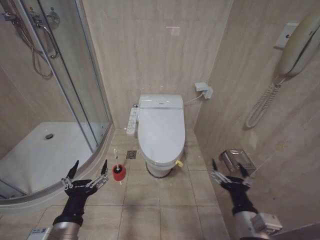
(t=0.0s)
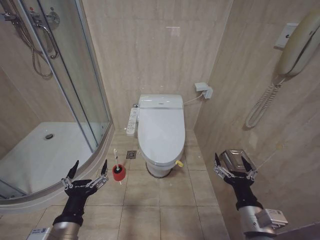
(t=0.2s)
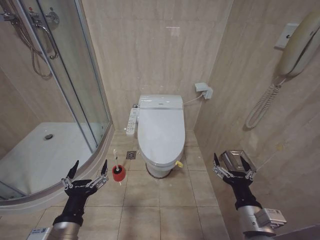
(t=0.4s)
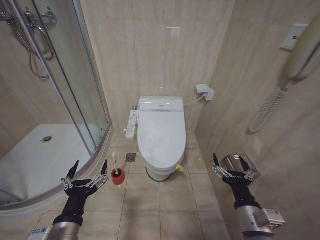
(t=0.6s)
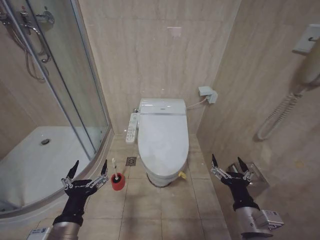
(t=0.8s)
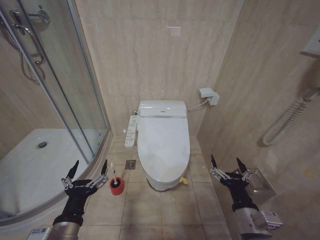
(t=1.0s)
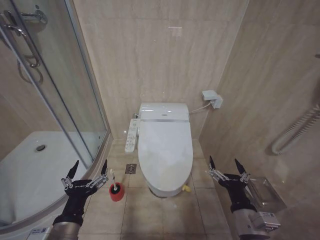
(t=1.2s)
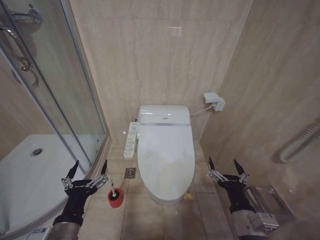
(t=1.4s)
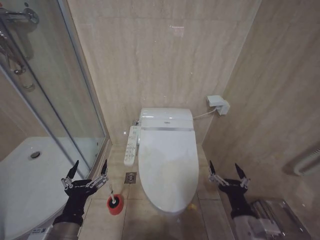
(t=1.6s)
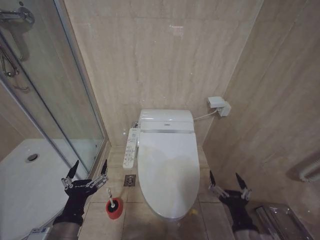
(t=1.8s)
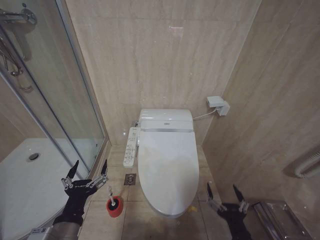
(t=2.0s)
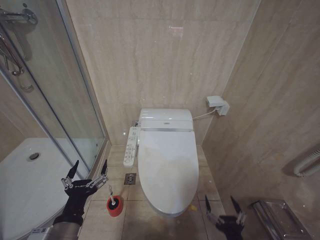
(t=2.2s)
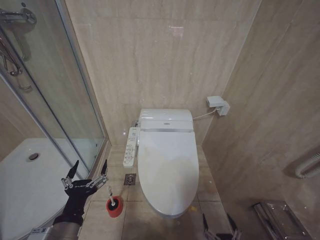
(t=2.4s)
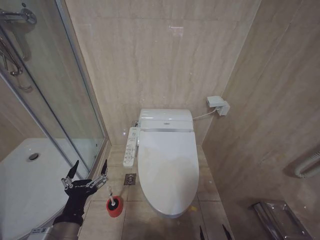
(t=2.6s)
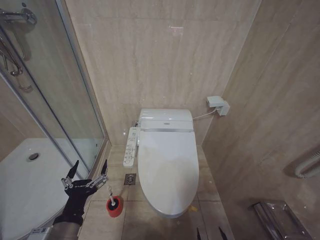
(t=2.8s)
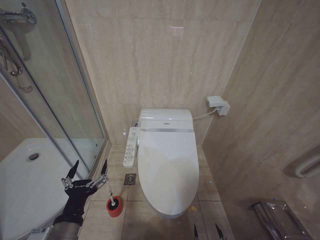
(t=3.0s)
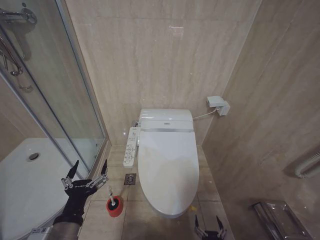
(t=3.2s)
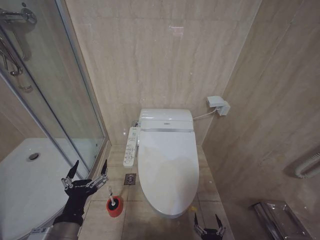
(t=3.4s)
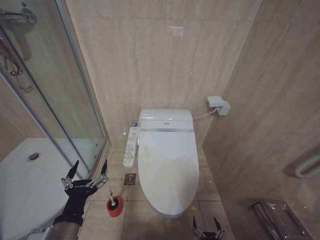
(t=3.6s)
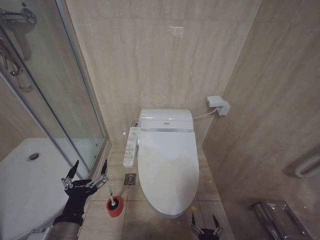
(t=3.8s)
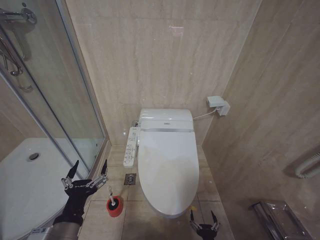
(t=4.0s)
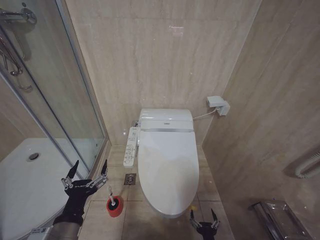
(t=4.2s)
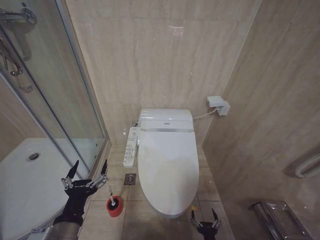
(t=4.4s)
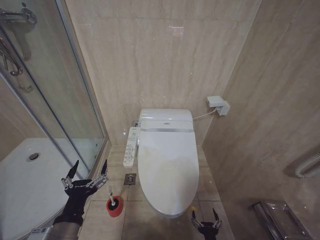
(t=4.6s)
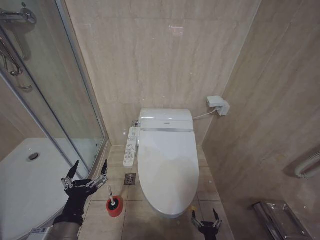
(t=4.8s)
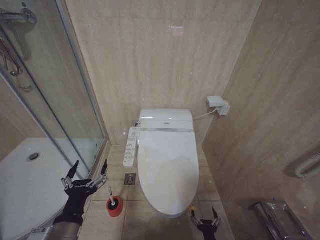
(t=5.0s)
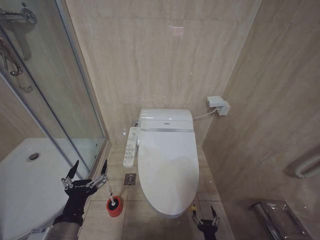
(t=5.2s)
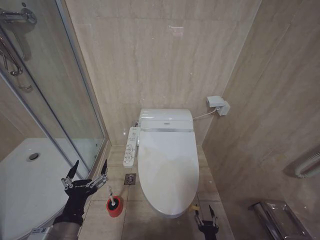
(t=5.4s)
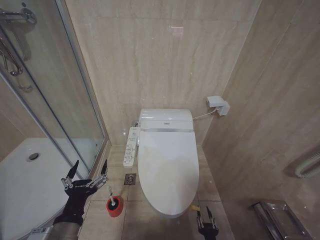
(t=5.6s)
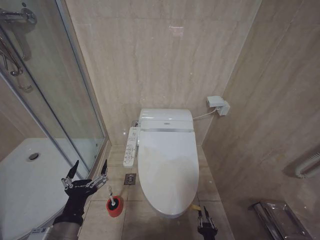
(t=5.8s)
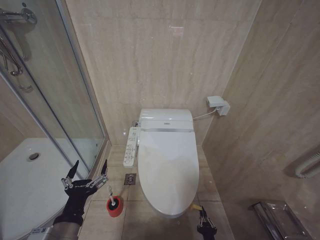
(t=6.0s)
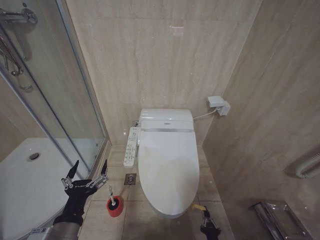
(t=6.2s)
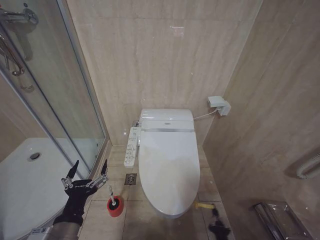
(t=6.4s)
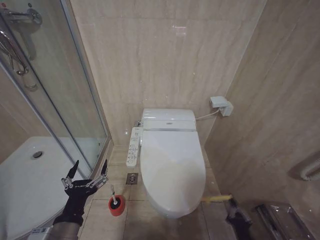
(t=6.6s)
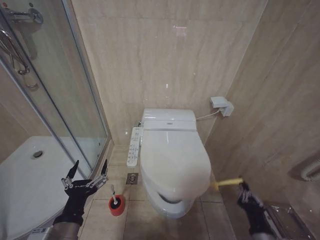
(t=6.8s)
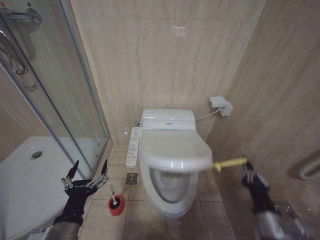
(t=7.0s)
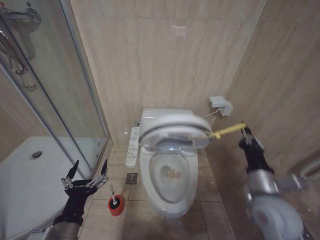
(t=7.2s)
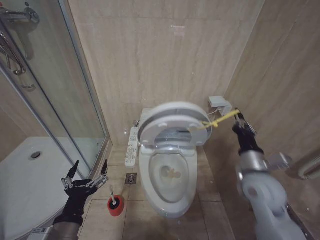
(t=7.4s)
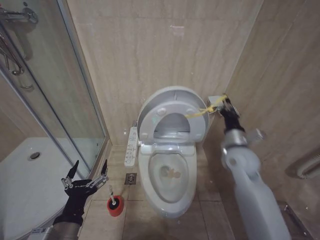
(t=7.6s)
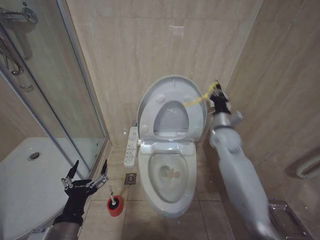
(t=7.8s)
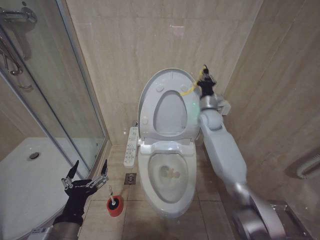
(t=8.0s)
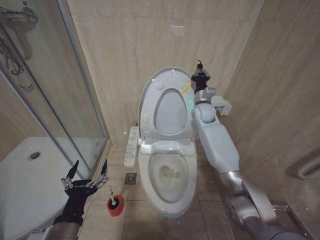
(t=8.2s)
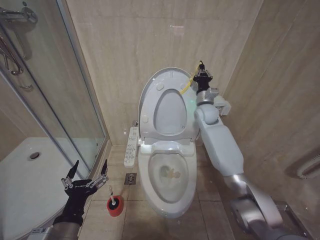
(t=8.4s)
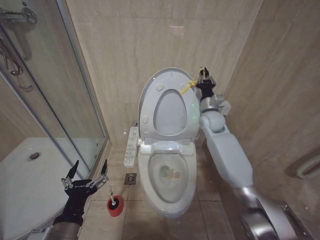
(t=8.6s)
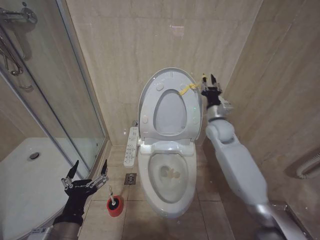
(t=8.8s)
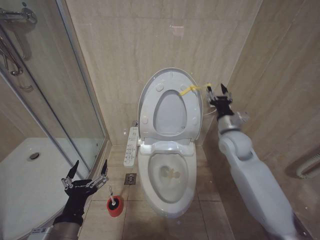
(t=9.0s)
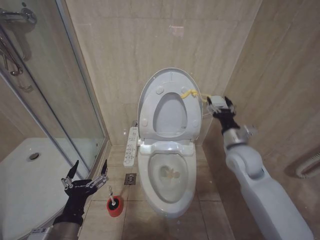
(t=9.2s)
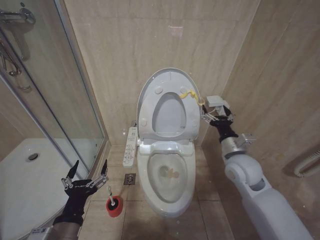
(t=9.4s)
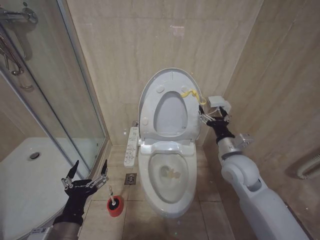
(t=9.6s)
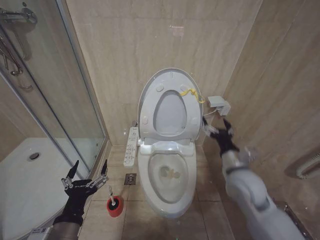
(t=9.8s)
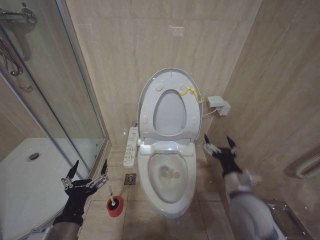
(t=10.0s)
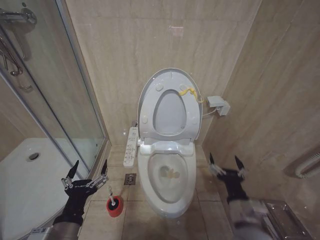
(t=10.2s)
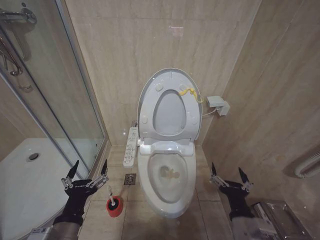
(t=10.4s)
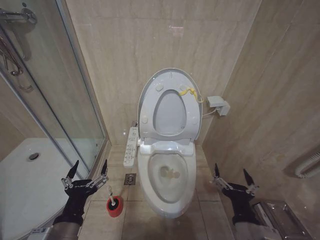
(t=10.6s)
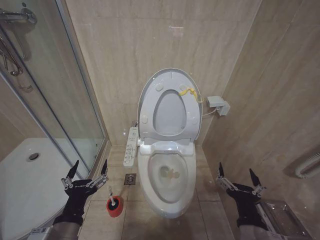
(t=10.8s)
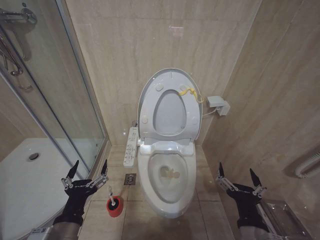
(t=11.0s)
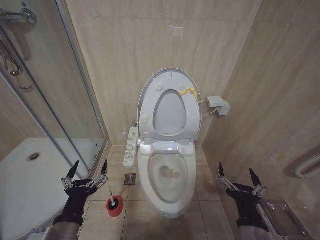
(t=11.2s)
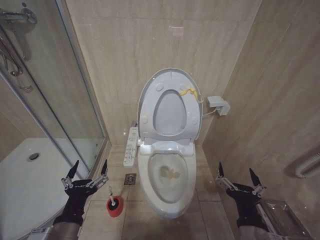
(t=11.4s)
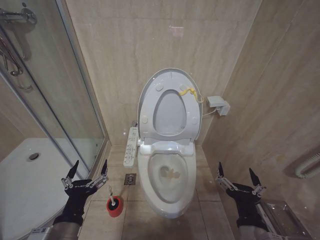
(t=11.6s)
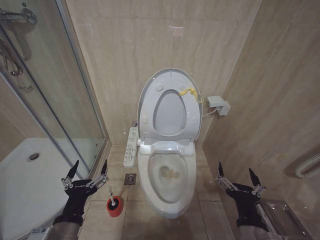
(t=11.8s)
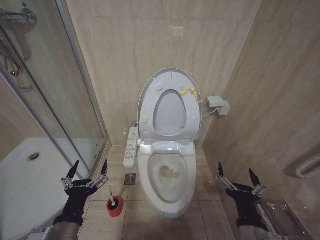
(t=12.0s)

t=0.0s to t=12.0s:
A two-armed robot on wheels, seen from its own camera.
Task of the whole recording: Open the toilet lid, clean the toilet bowl with a toilet brush, close the toilet lid, and flush.
t=1.6s to t=3.0s: The right gripper goes approximately 25 cm downward.
t=6.0s to t=7.6s: The right gripper heads upward and forward, covering roughly 50 cm.
t=7.6s to t=9.0s: The right gripper is displaced forward by roughly 10 cm, and opens its fingers.
t=9.0s to t=10.4s: The right gripper is displaced backward and downward by about 35 cm, and opens up.
t=10.4s to t=12.0s: The grippers move only a little.

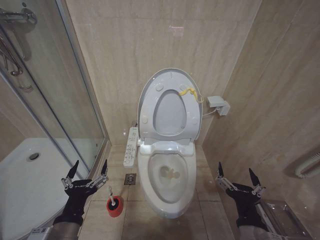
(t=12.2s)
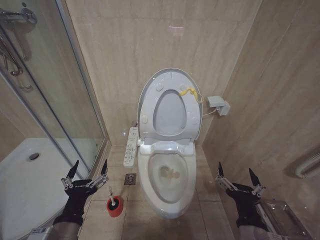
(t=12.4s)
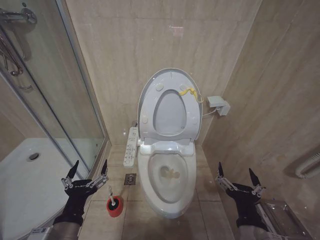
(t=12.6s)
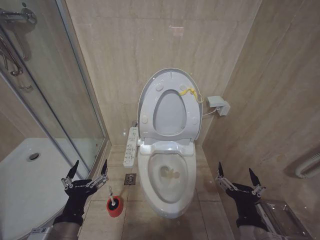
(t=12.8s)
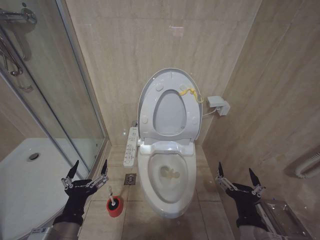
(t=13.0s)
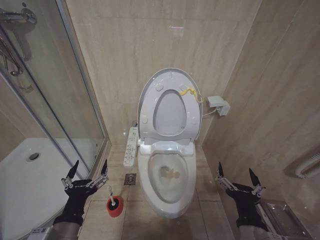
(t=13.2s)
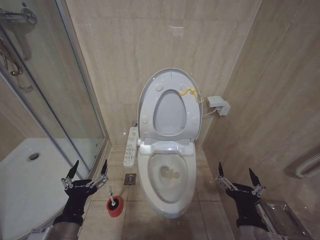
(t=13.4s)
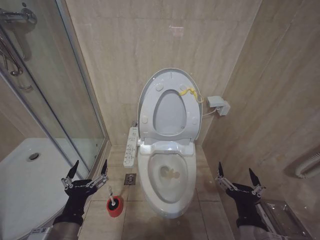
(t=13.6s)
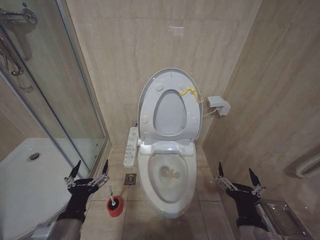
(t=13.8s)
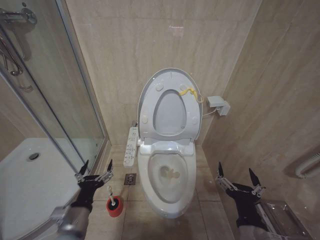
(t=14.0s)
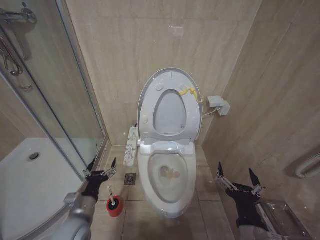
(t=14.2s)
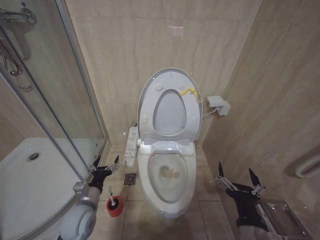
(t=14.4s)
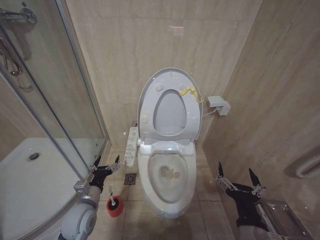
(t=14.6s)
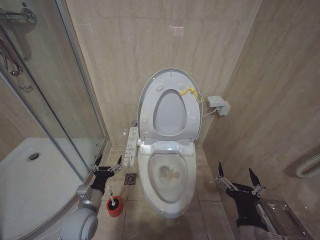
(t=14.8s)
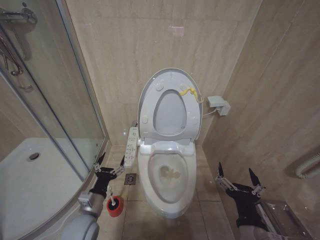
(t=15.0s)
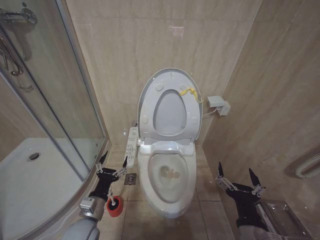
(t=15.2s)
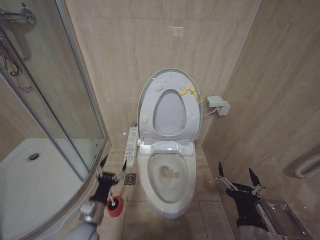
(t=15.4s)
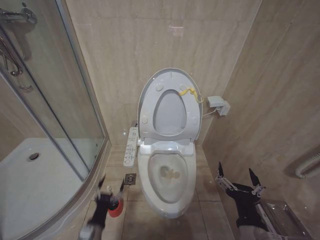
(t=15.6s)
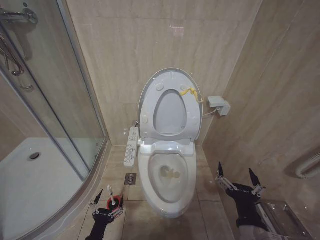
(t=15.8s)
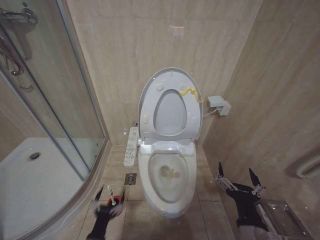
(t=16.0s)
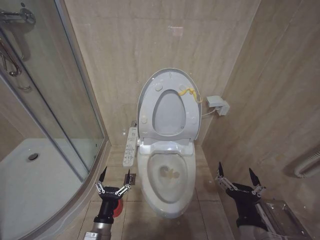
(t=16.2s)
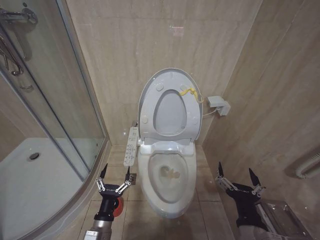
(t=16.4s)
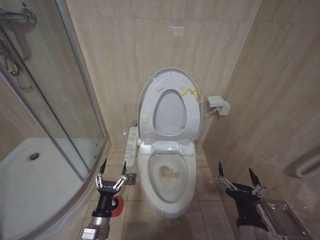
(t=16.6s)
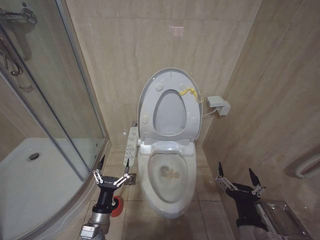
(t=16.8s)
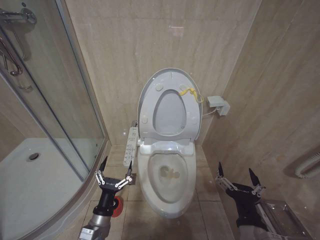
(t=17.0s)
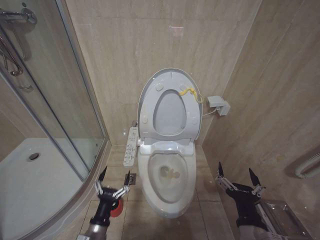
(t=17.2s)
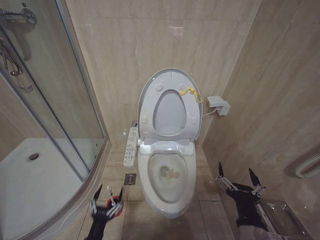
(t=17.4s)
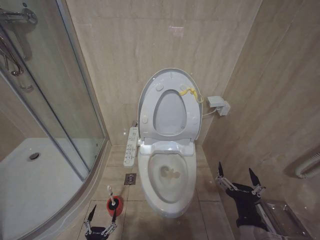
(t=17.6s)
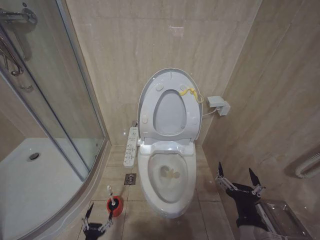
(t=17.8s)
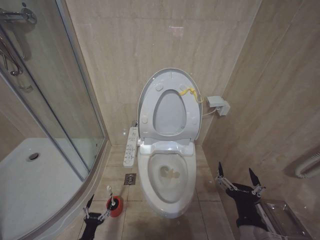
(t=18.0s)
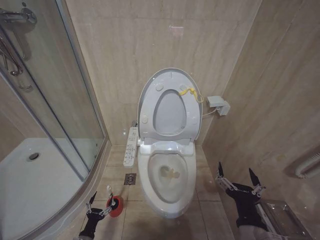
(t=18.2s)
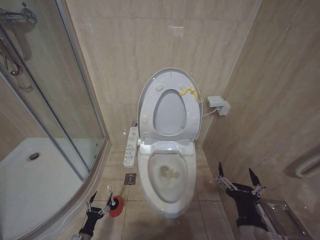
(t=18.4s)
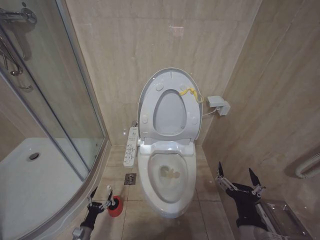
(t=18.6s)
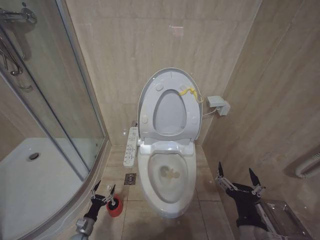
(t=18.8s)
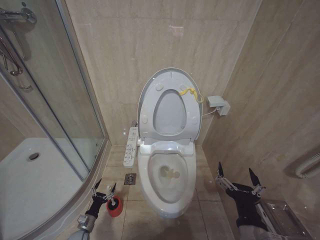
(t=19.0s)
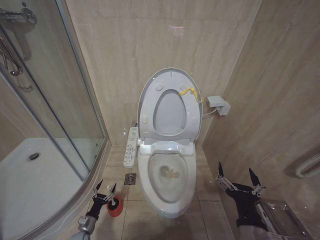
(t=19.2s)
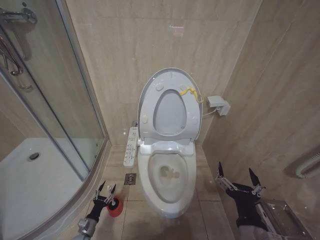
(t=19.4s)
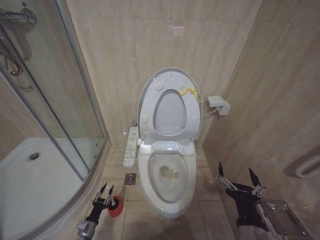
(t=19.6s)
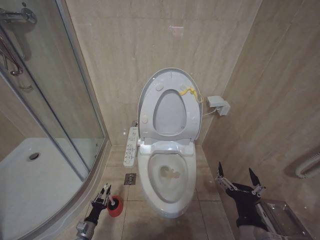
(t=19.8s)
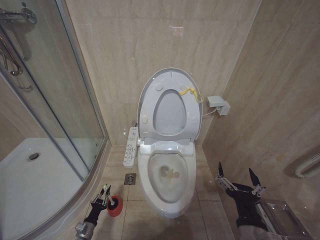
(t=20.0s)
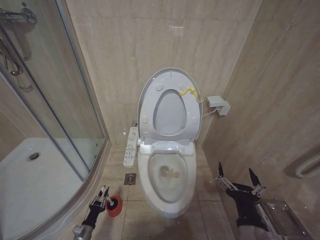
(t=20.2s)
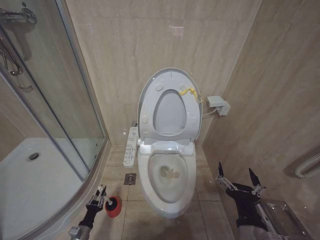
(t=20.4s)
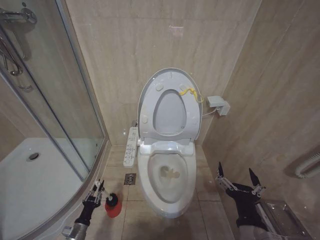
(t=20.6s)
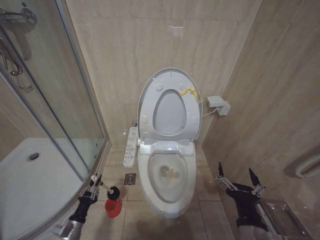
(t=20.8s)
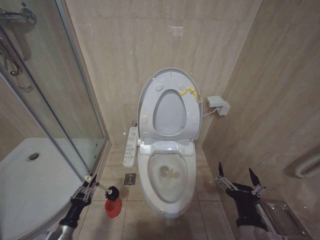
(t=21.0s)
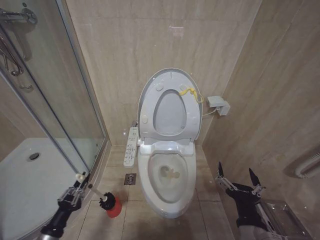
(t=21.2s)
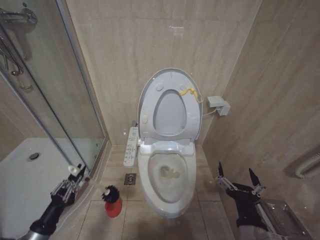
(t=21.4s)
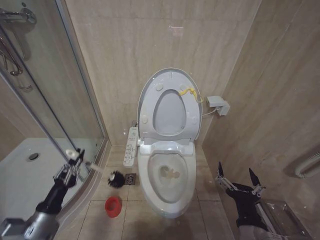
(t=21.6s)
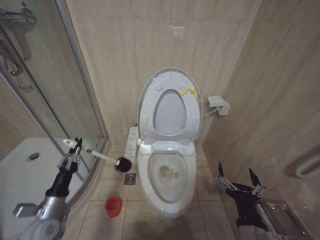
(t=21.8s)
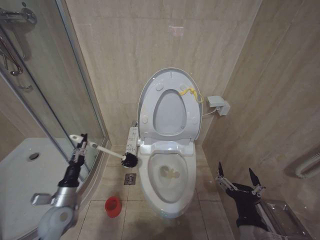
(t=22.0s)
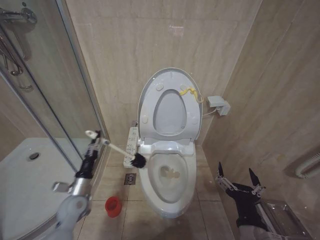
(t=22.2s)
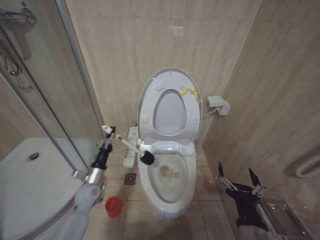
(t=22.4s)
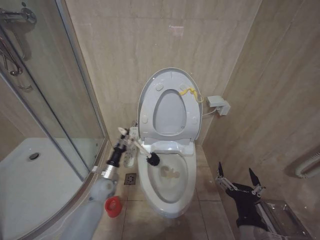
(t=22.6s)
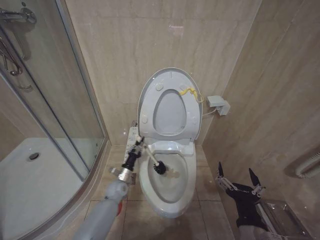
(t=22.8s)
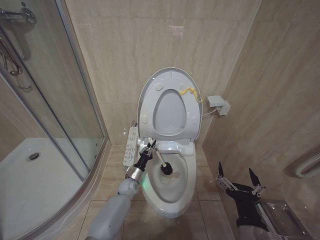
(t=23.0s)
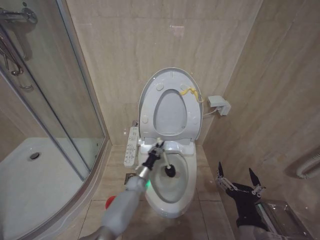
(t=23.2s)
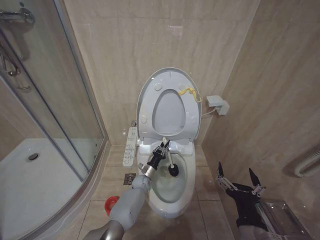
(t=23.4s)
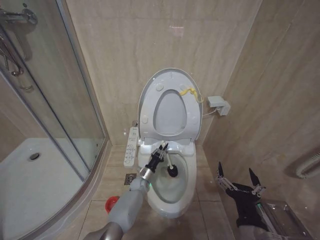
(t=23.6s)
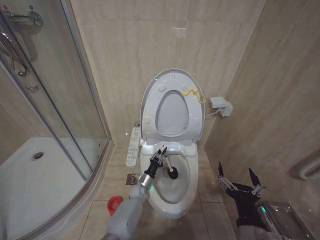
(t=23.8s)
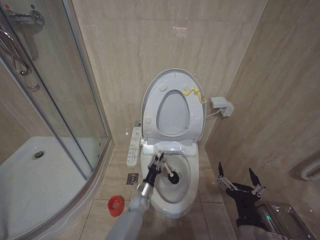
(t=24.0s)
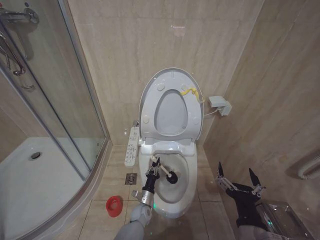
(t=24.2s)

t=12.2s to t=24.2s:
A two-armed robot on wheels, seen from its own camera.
Task of the whole recording: Open the toilet lid, clean the toilet bowl with a toilet brush, close the toilet lid, and flush.
t=12.2s to t=13.8s: Both grippers stay about where they are.
t=13.8s to t=15.2s: The left gripper goes approximately 15 cm forward and downward.
t=15.2s to t=16.6s: The left gripper moves downward, roughly 5 cm.
t=16.6s to t=18.2s: The left gripper heads downward and to the left, covering approximately 25 cm.
t=18.2s to t=19.8s: The left gripper shifts approximately 5 cm forward, and closes.
t=19.8s to t=21.2s: The left gripper heads upward and backward, covering about 20 cm.
t=21.2s to t=22.6s: The left gripper shifts roughly 25 cm forward and to the right.
t=22.6s to t=24.2s: The left gripper heads to the right and downward, covering some 25 cm.
